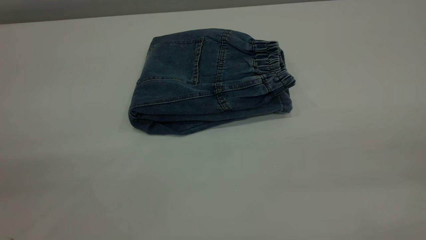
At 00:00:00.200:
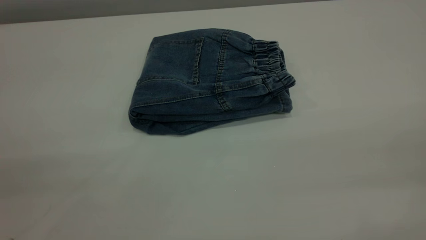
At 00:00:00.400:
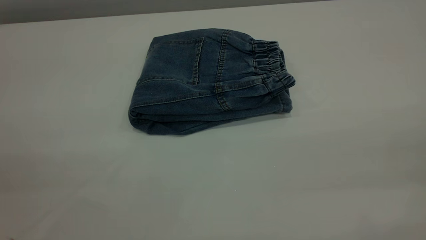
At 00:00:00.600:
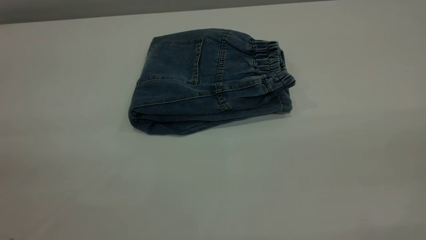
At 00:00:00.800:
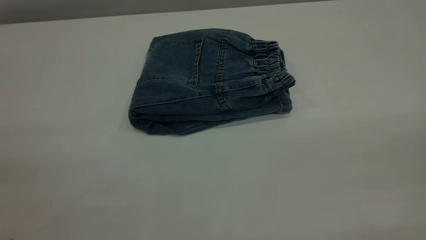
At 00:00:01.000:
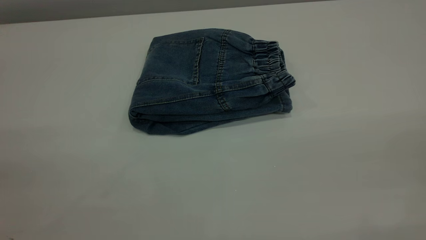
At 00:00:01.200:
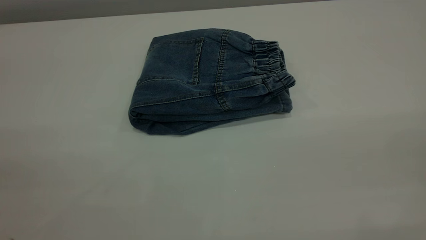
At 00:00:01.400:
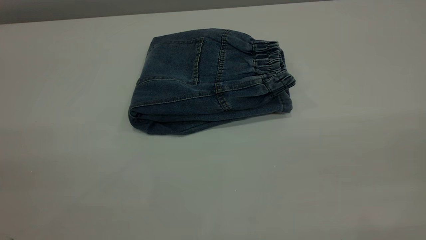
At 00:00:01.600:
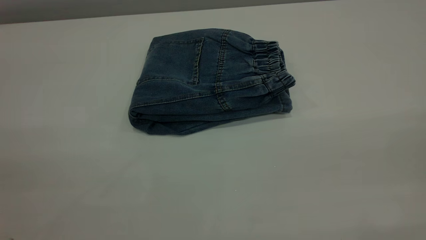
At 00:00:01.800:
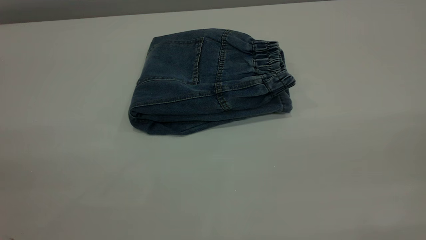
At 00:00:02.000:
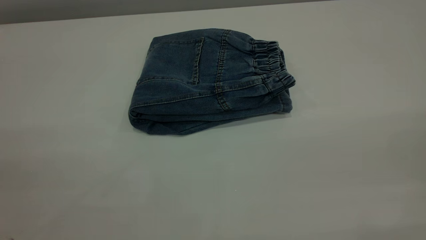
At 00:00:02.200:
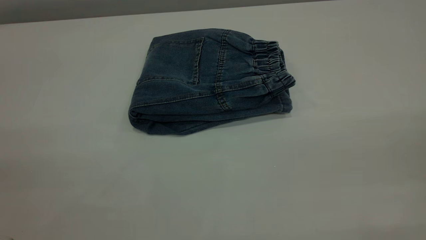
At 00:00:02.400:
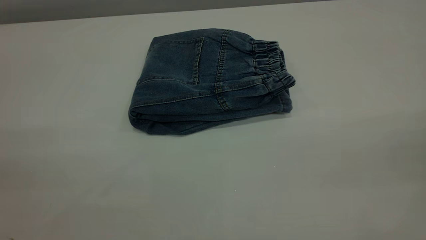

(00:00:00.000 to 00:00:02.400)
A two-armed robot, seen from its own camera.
00:00:01.200 - 00:00:02.400: Both grippers stay put.
